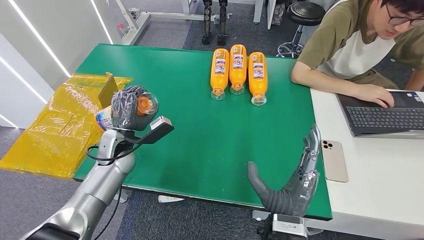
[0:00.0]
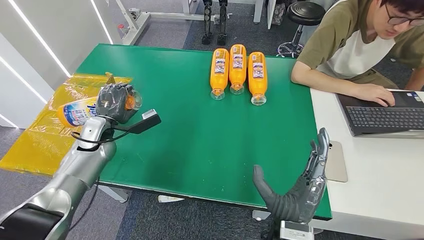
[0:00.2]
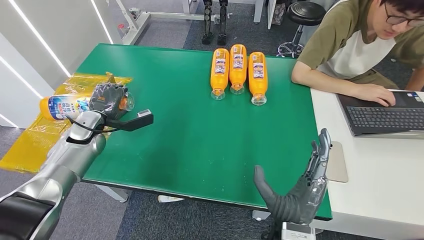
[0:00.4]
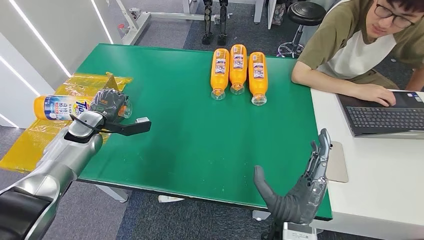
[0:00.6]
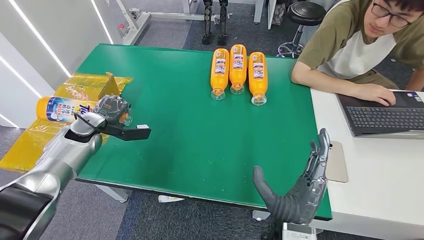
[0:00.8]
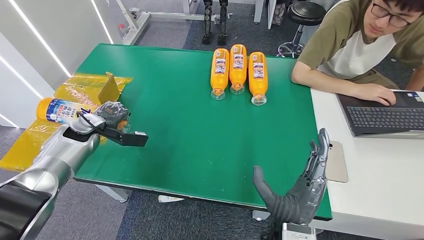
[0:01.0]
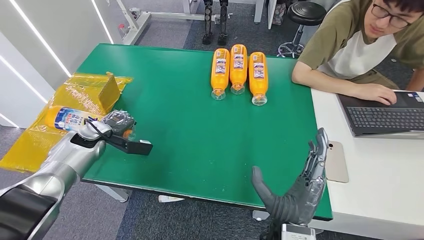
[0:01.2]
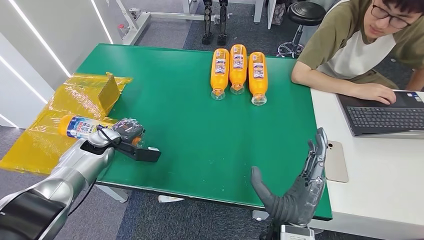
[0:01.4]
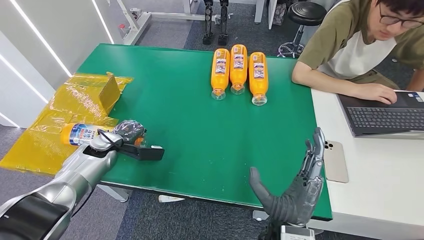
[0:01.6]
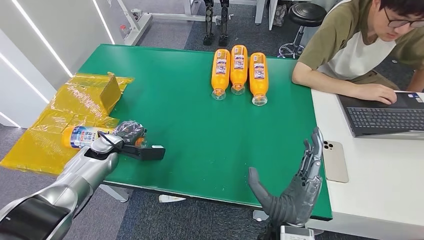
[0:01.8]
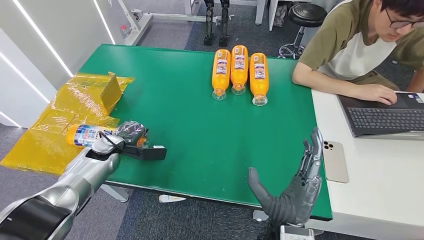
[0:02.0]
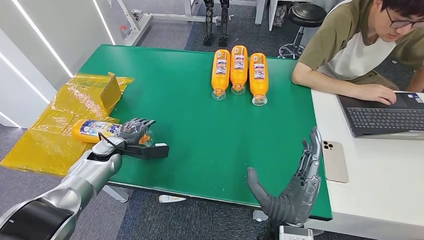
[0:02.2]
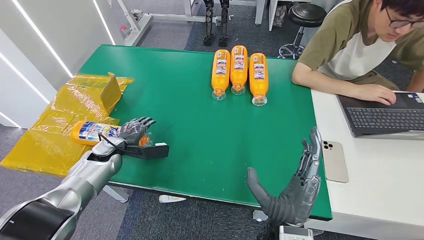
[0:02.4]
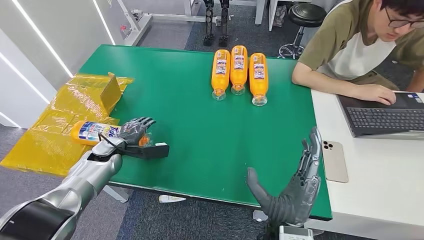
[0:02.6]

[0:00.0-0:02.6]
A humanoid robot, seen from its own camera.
Step, 0:00.0 to 0:02.4: Turn the bottle to the front side.
0:00.0 to 0:01.2: The left hand moves to the left, roughly 15 cm.
0:01.2 to 0:02.6: The left hand moves downward, some 5 cm.
